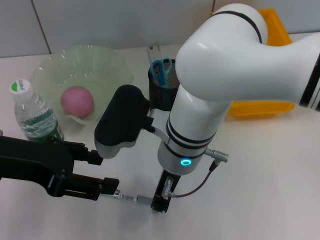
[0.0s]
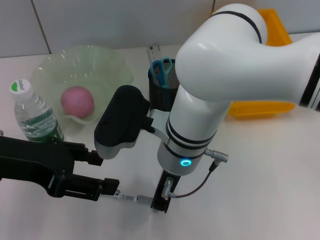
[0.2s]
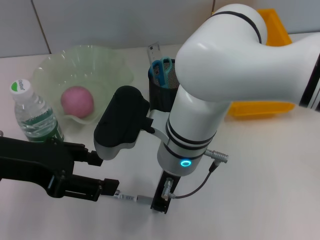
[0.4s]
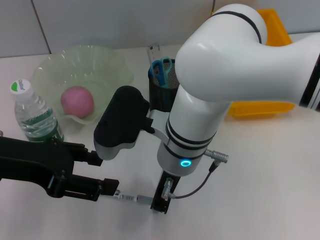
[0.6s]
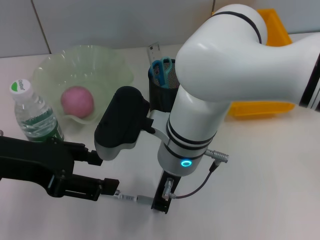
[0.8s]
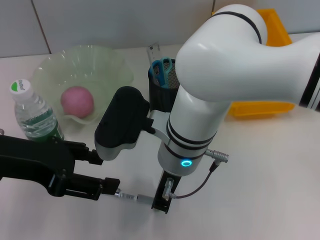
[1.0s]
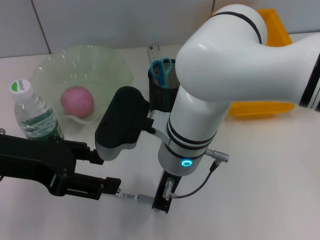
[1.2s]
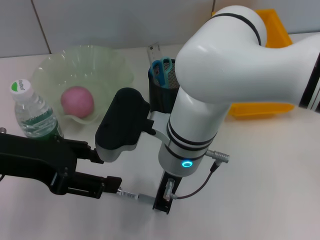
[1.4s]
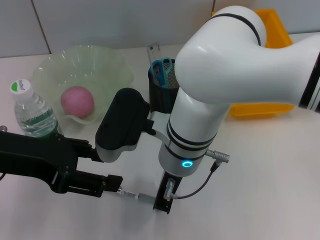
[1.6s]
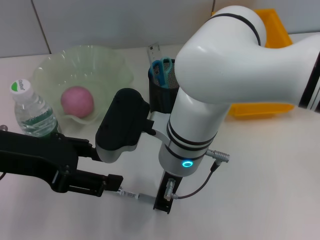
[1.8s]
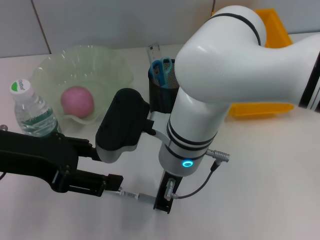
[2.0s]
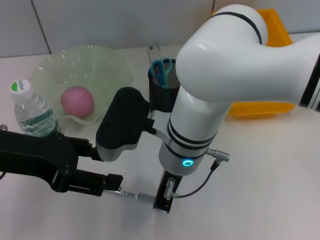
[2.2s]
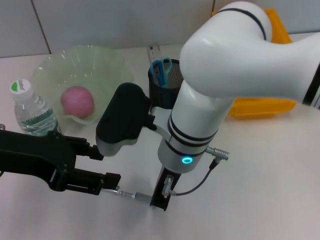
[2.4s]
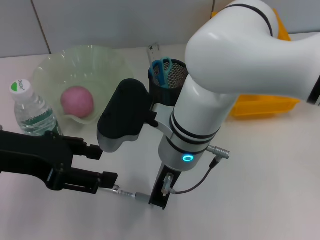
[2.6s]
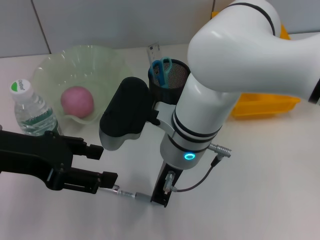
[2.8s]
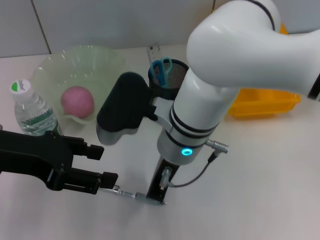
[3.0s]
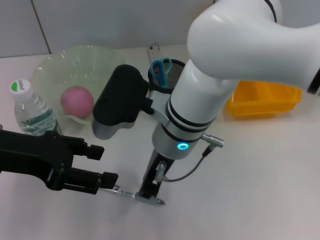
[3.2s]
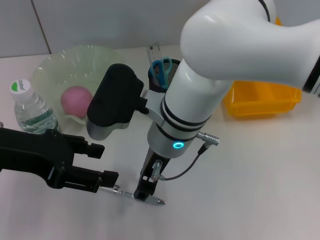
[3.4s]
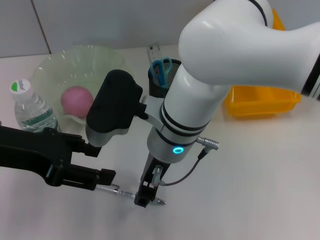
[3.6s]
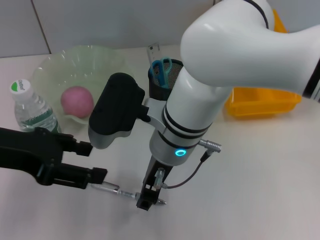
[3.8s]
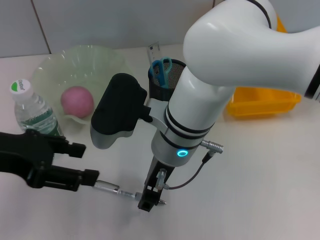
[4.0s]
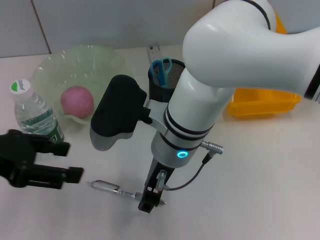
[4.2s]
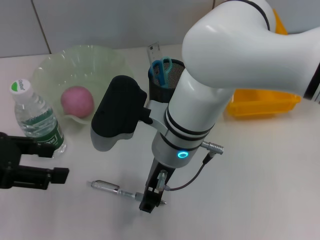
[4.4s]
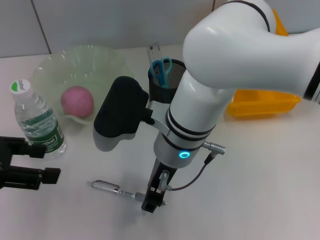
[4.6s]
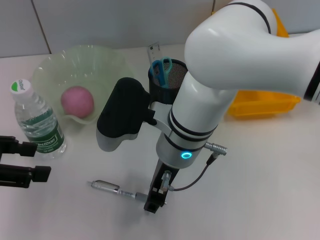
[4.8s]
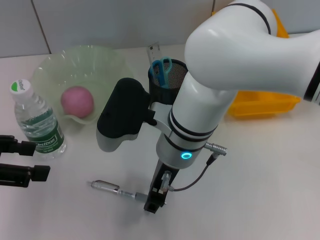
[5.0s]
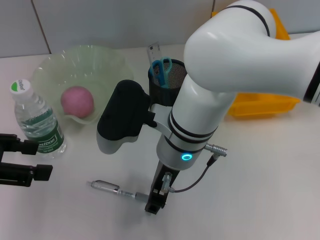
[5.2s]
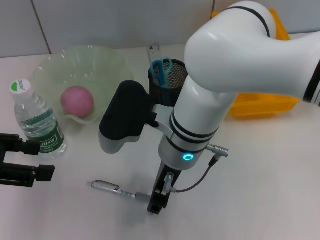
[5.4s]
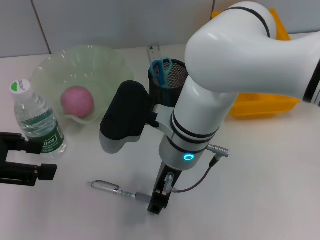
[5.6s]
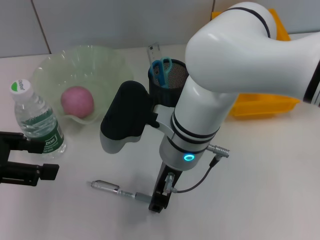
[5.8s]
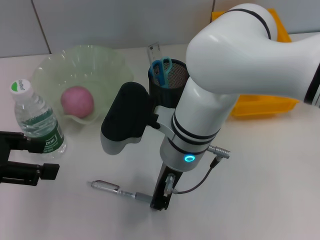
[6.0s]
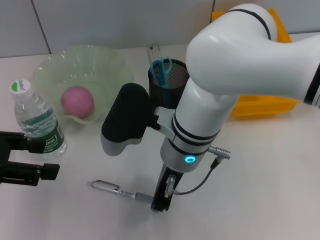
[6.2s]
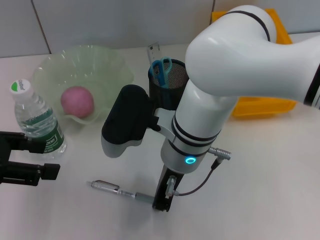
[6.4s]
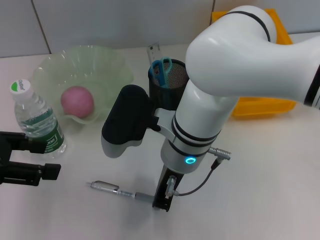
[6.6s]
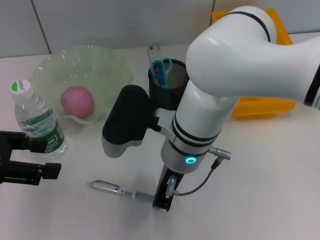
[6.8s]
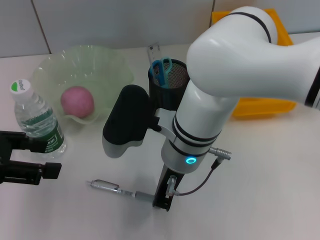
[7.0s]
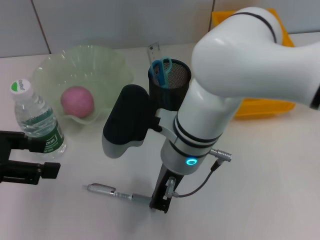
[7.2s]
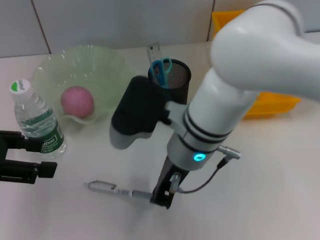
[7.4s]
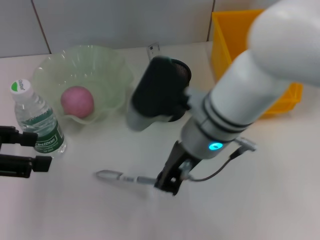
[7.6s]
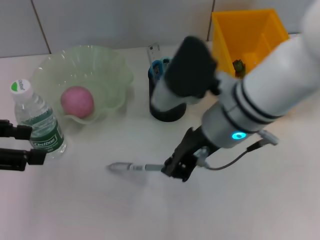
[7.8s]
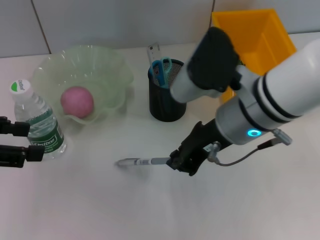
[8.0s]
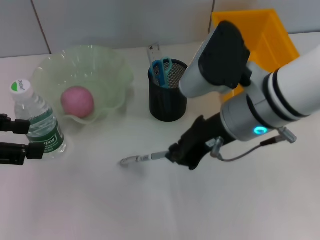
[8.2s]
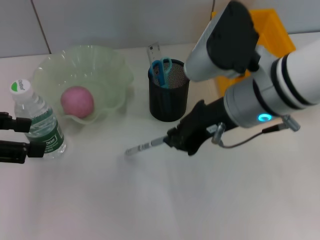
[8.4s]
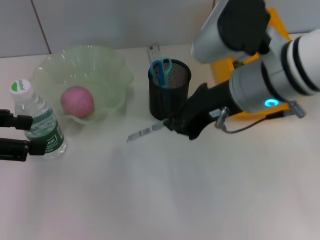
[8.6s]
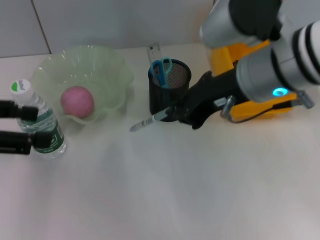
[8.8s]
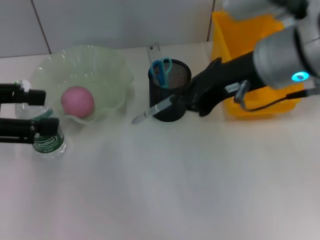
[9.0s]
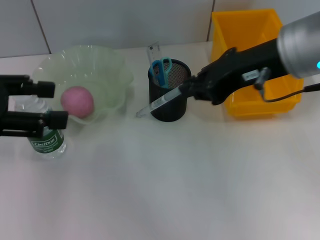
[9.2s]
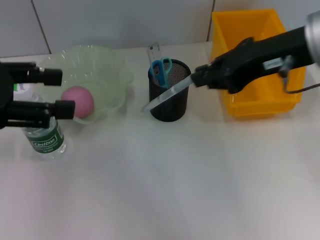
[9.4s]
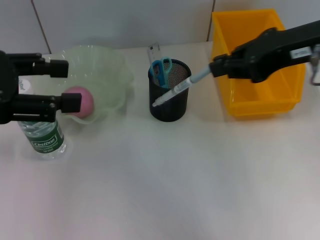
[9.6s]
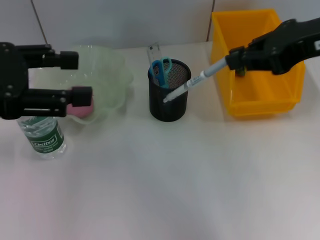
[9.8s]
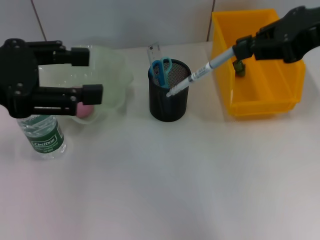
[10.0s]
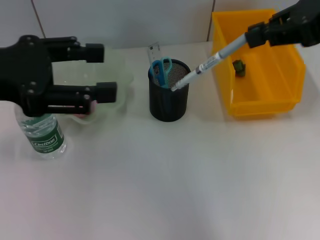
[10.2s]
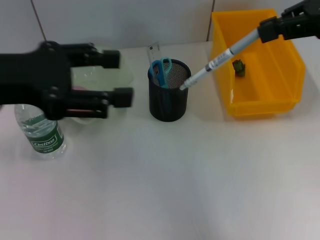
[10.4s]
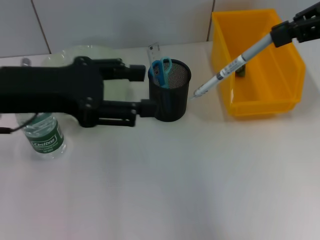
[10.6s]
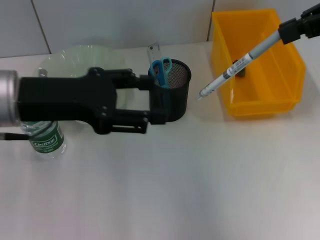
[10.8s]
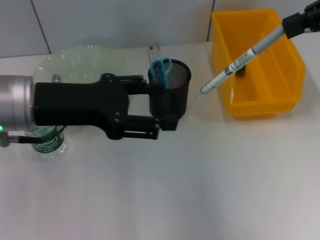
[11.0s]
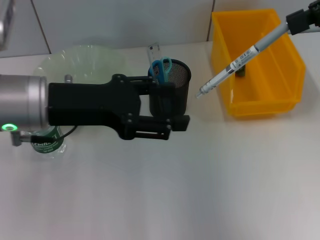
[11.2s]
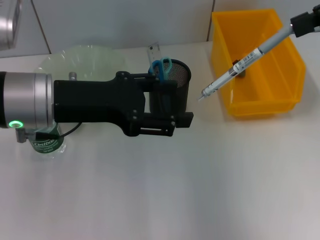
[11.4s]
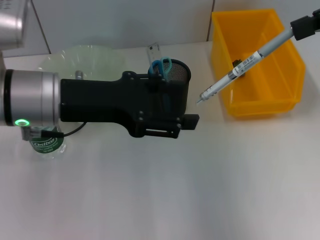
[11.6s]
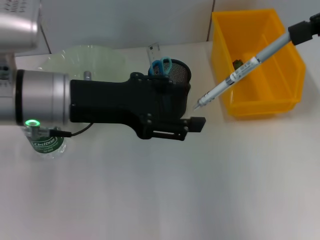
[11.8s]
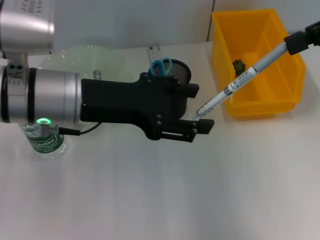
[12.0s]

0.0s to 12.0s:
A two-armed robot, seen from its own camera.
Step, 0.0s to 6.8s: Grab the gray spring-action pen with the right hand.
0.0s to 1.6s: Neither gripper changes place.
3.0s to 4.4s: The right gripper opens up. Meanwhile the left gripper heads to the left, covering roughly 5 cm.
4.4s to 6.0s: The grippers stay close to where they were, moving slightly.
6.0s to 7.6s: The right gripper closes up.
7.6s to 9.0s: The right gripper goes about 15 cm upward and to the right.
9.0s to 10.4s: The right gripper shifts approximately 15 cm to the right and upward; the left gripper goes roughly 5 cm to the right.
10.4s to 12.0s: The right gripper moves about 5 cm, while the left gripper moves to the right and downward, approximately 10 cm.

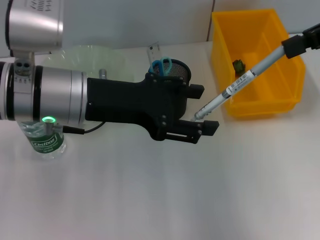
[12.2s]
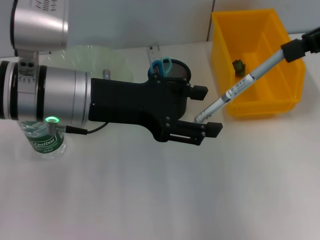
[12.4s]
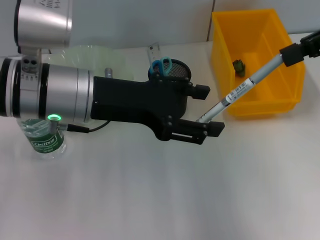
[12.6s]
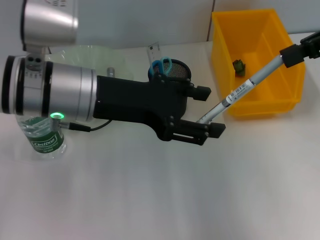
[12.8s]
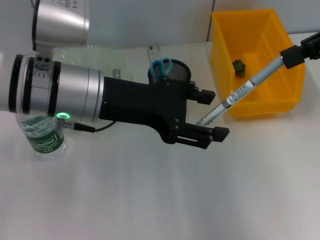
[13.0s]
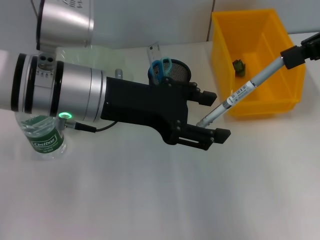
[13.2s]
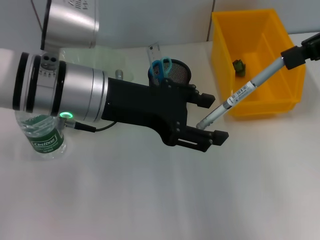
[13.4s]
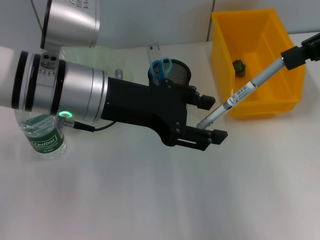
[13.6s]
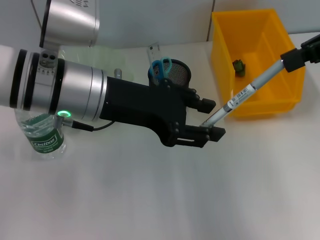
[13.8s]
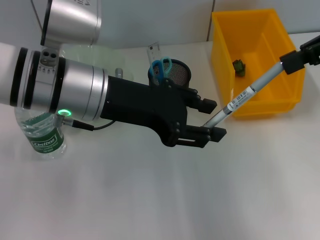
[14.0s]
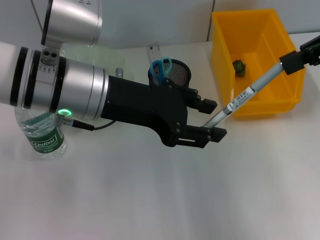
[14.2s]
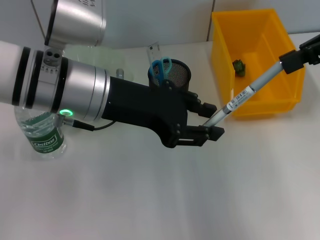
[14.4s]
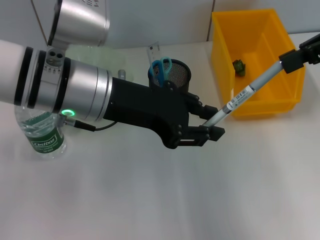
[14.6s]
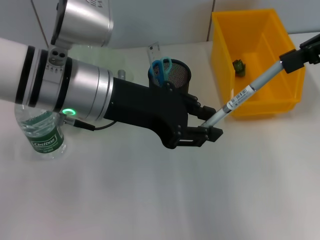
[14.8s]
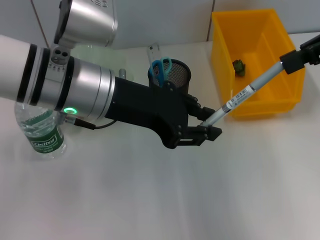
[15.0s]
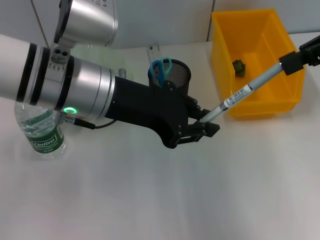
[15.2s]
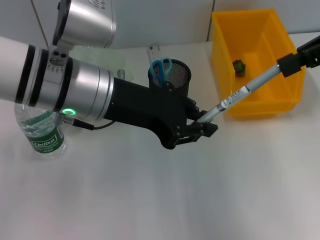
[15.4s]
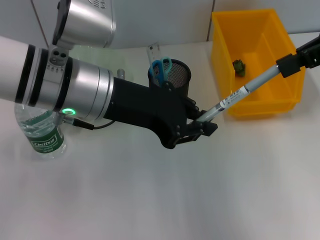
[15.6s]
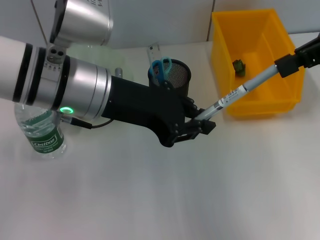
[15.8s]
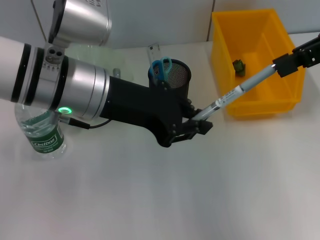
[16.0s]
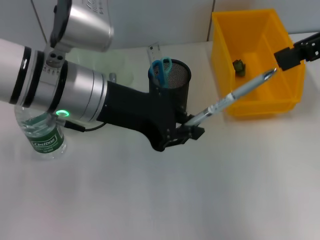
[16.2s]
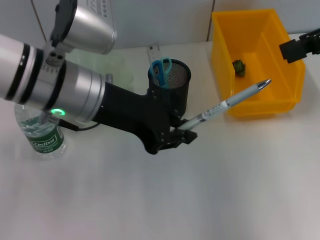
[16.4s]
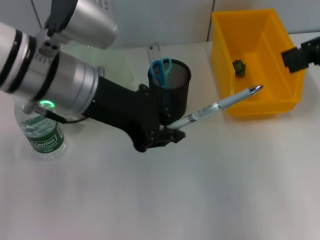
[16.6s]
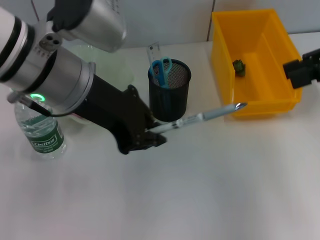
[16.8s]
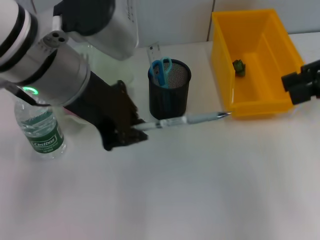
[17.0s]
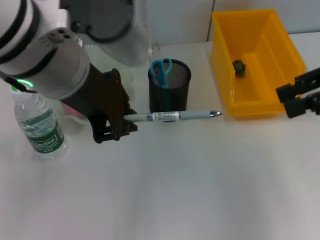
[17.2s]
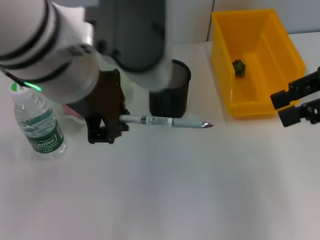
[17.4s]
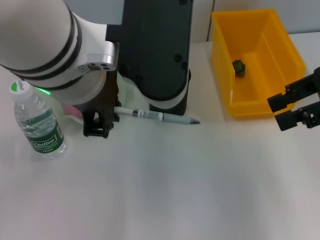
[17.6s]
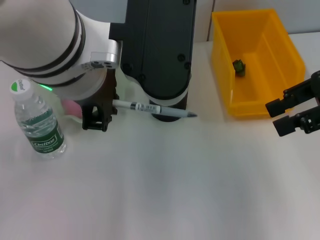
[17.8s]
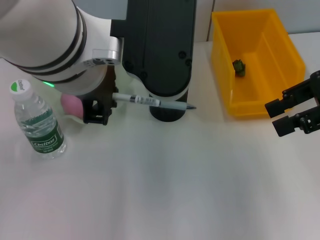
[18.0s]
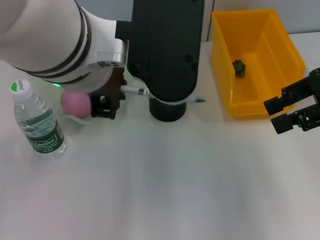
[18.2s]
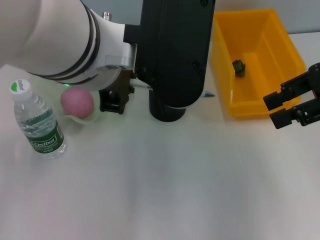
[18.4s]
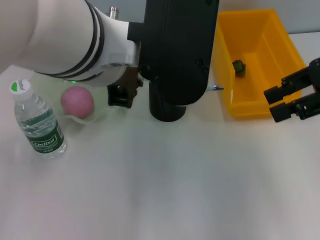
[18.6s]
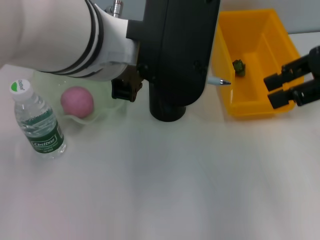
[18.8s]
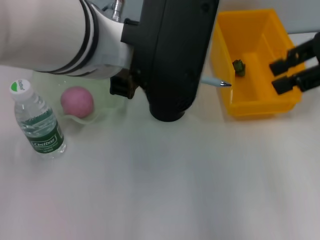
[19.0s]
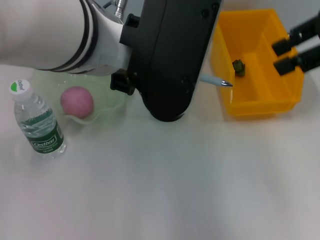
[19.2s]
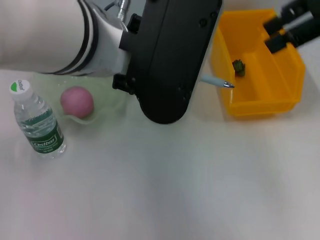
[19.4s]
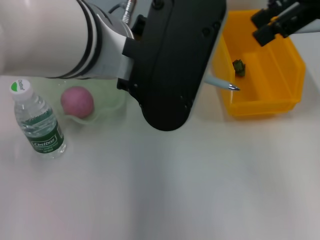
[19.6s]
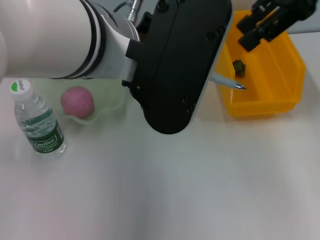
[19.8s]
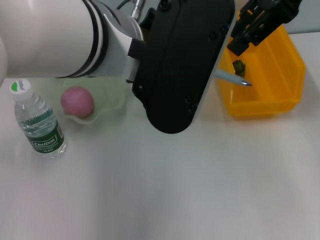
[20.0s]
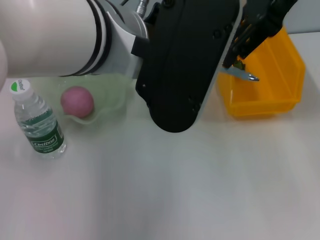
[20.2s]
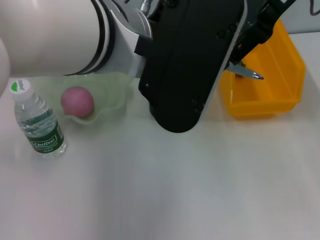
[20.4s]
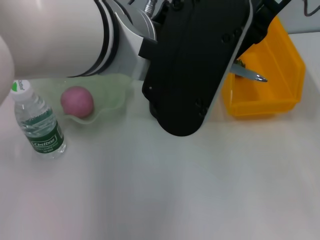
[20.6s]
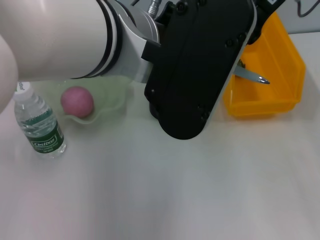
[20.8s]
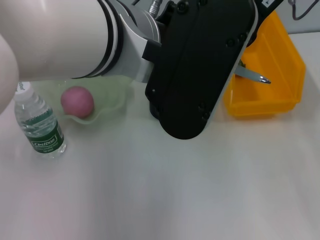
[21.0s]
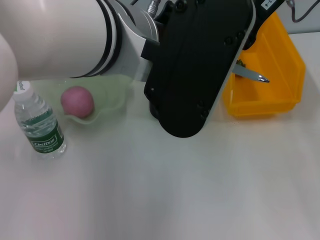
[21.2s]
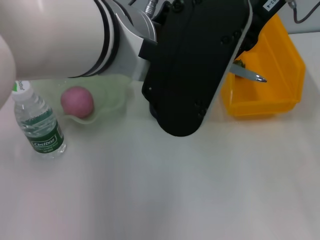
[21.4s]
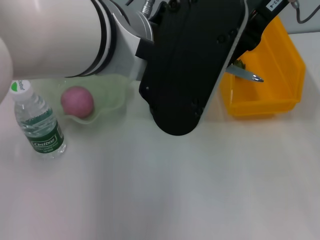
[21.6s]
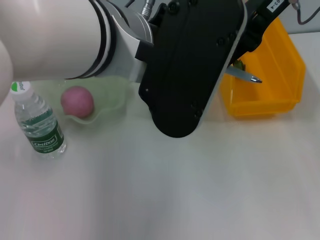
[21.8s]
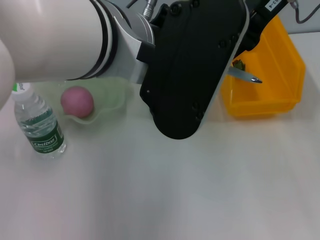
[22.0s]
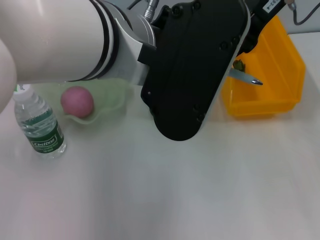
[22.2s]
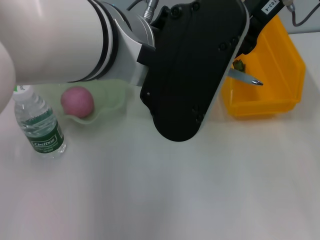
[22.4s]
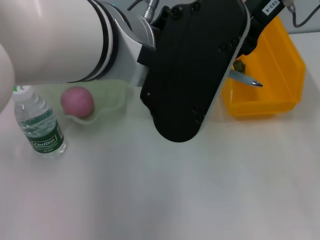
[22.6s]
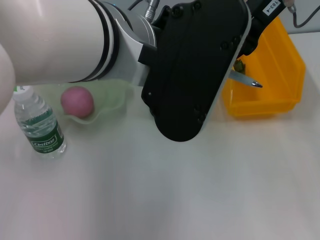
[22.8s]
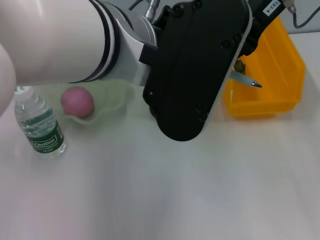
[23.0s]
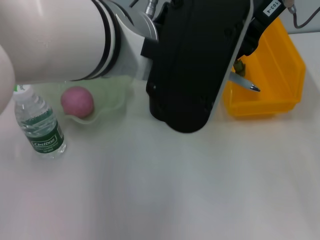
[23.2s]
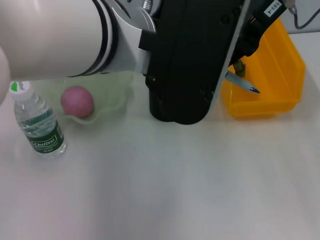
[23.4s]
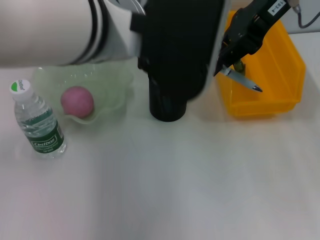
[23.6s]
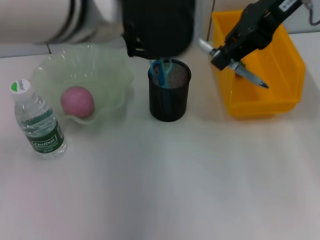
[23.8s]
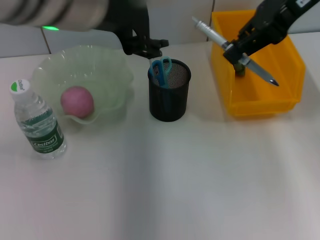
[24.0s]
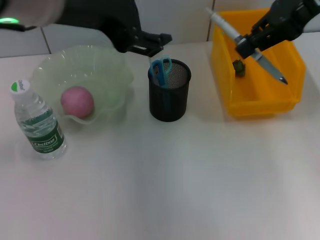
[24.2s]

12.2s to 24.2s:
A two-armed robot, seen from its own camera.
Step, 12.2s to 16.0s: Pass the gray spring-action pen from the right hand to the left hand.
Step, 16.2s to 23.0s: Pass the gray spring-action pen from the left hand to the right hand.
12.2s to 13.8s: The grippers stay close to where they were, moving slightly.
13.8s to 15.2s: The left gripper closes up.
15.2s to 16.6s: The right gripper opens its fingers.
16.6s to 18.2s: The left gripper travels upward, to the right and backward by about 10 cm. The right gripper moves approximately 5 cm.
18.2s to 19.8s: The right gripper shifts some 15 cm upward, forward and to the left.
19.8s to 21.2s: The right gripper moves to the left, some 5 cm.
21.2s to 22.6s: The right gripper closes.
22.6s to 24.2s: The right gripper moves to the right, approximately 5 cm. The left gripper is displaced to the left by roughly 5 cm, and opens its fingers.
